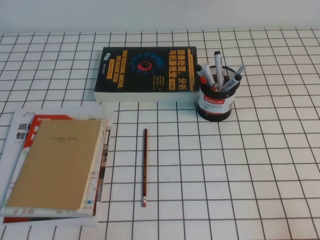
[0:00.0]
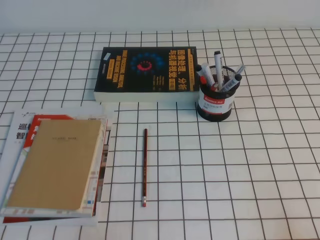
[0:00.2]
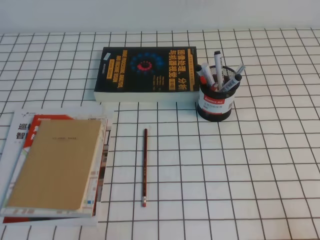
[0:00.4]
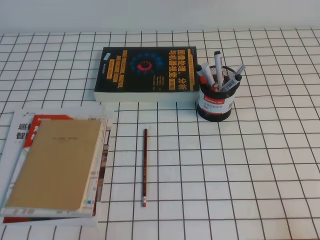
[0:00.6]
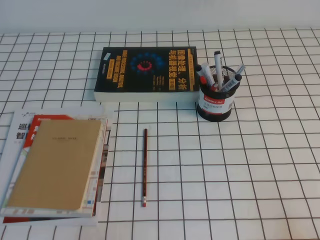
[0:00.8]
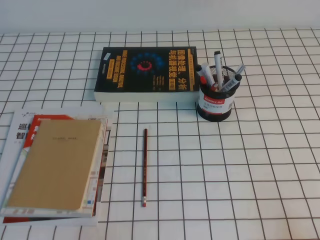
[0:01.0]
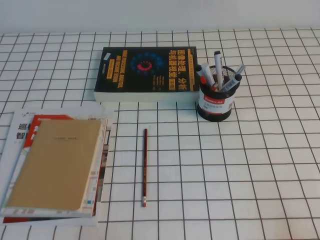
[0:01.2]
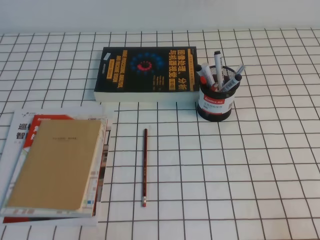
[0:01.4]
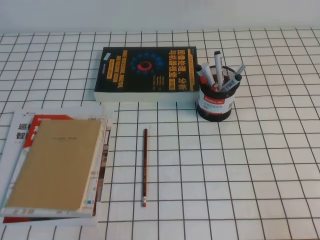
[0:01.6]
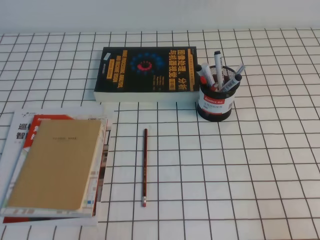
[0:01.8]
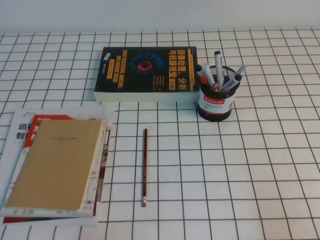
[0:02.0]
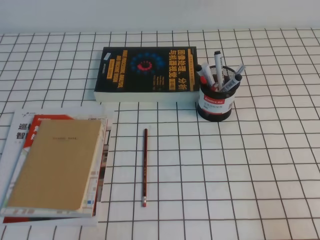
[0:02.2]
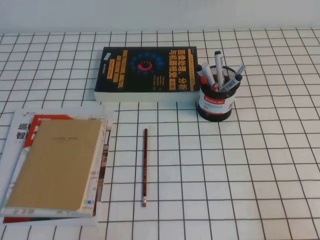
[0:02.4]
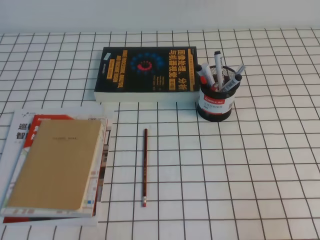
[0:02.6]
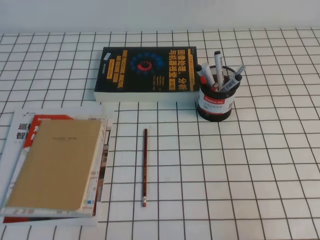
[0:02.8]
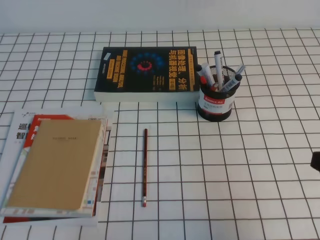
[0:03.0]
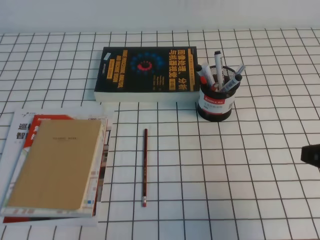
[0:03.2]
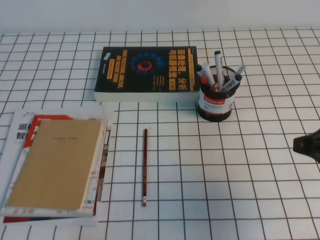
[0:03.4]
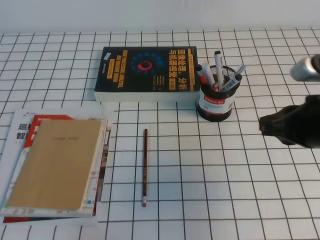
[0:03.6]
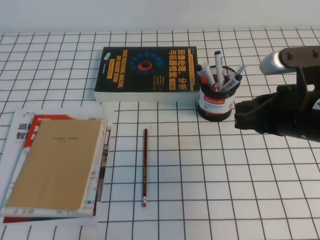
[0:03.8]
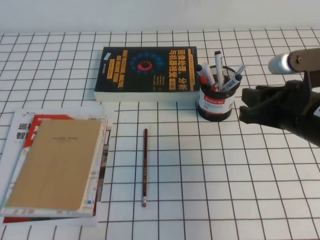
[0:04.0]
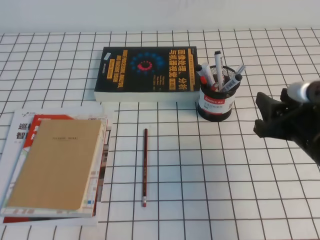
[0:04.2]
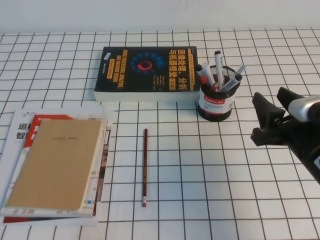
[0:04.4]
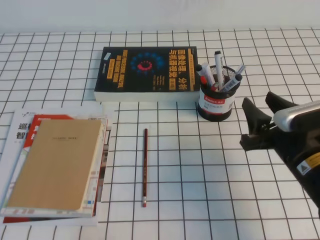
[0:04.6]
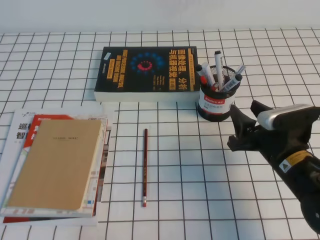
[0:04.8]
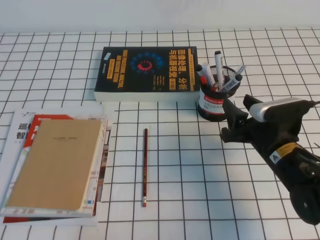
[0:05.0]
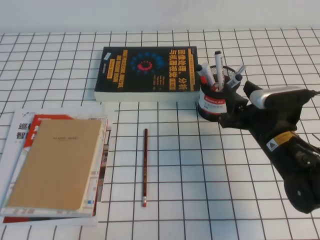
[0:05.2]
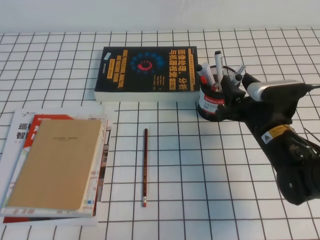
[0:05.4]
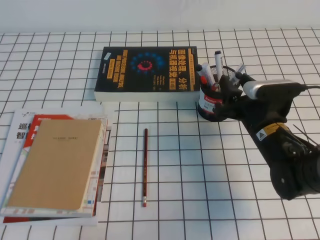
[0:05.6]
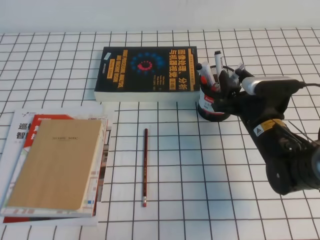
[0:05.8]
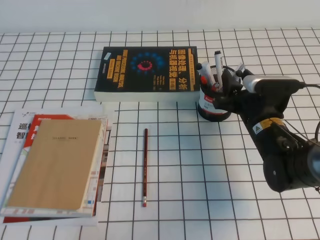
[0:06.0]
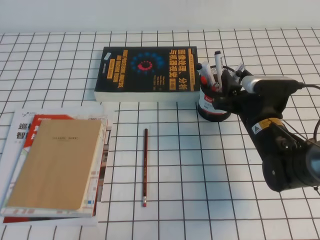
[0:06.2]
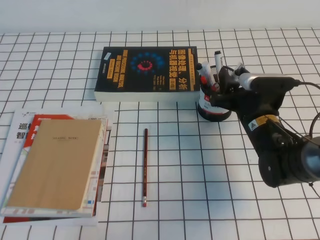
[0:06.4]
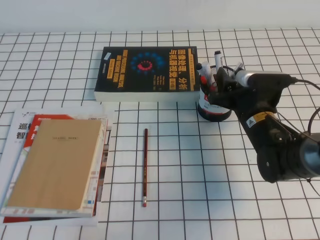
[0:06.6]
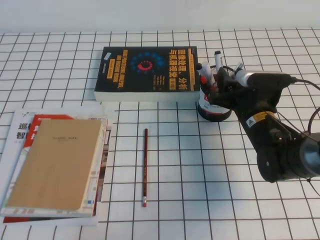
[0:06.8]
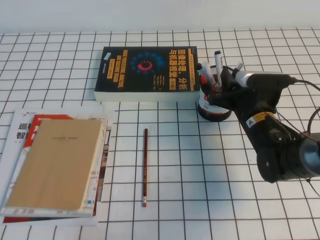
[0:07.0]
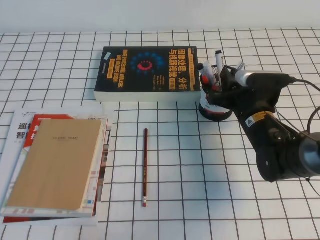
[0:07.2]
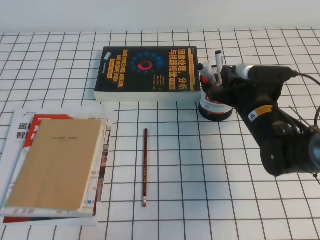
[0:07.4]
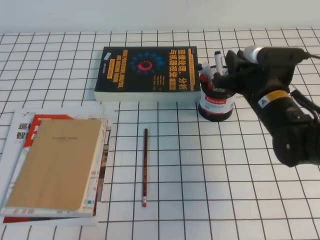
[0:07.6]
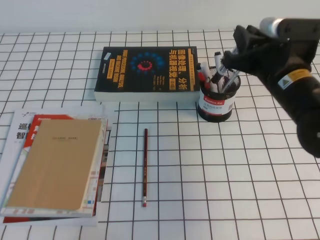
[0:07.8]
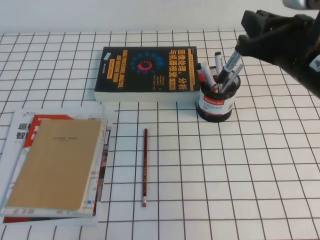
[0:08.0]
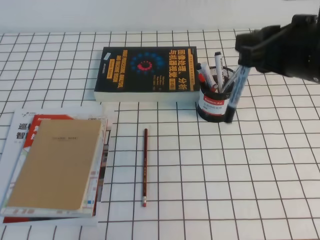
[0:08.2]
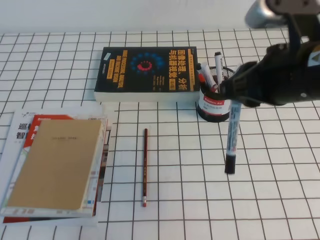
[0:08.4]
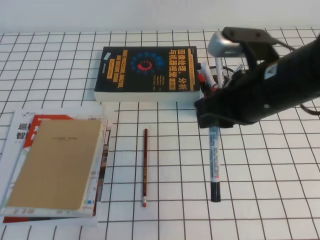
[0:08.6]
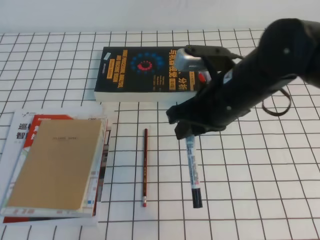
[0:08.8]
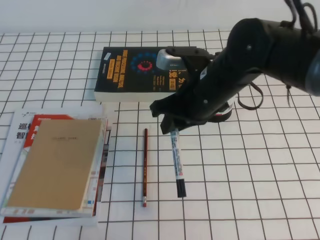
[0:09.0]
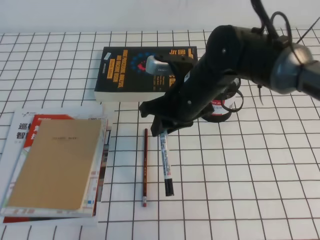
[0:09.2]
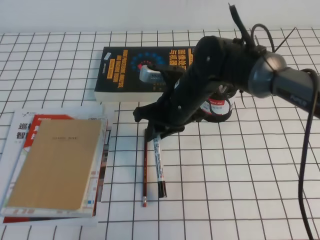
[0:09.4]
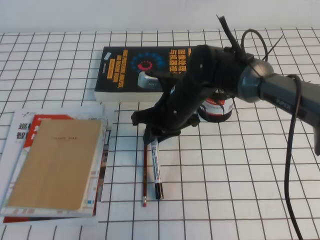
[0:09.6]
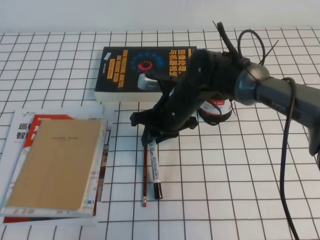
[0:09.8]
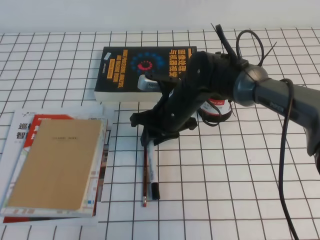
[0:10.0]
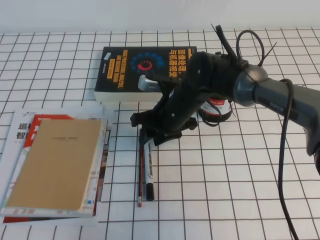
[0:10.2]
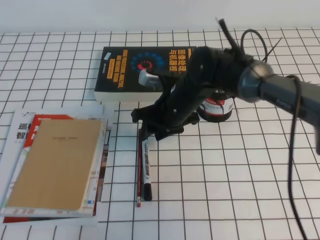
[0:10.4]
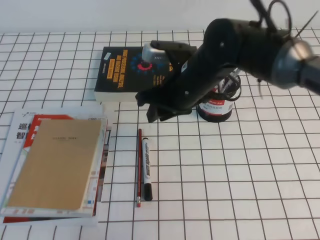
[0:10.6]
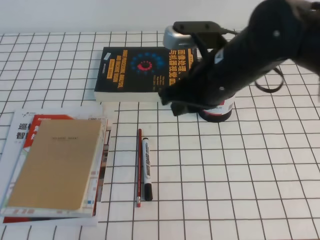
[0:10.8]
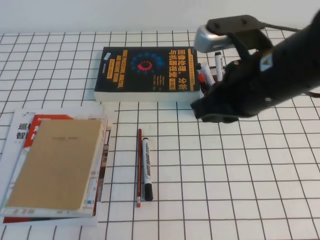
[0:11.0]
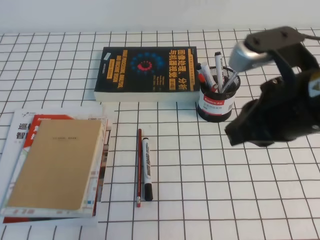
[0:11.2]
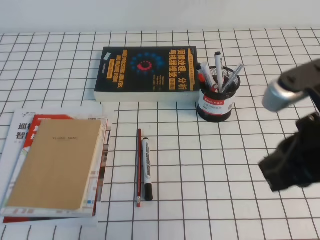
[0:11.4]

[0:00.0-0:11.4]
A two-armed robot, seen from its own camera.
0:01.4 to 0:02.8: The right gripper travels upward by some 10 cm.
0:02.8 to 0:04.2: The right gripper heads forward and to the left, covering some 20 cm, and opens.
0:04.2 to 0:05.6: The right gripper goes roughly 10 cm forward and downward.
0:05.6 to 0:07.2: The right gripper closes up.
0:07.2 to 0:08.6: The right gripper heads upward and backward, covering roughly 20 cm.
0:08.6 to 0:10.0: The right gripper is displaced downward, forward and to the left by some 20 cm.
0:10.0 to 0:11.4: The right gripper shifts some 30 cm backward, to the right and upward, and closes.

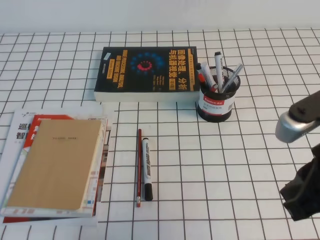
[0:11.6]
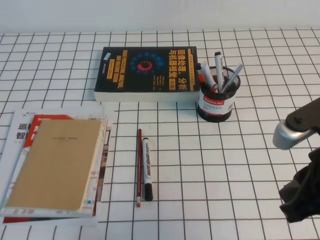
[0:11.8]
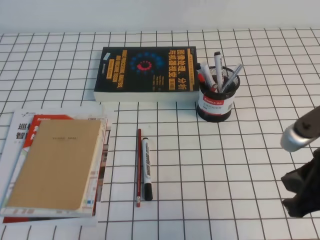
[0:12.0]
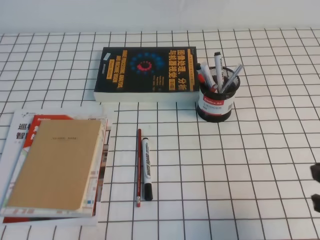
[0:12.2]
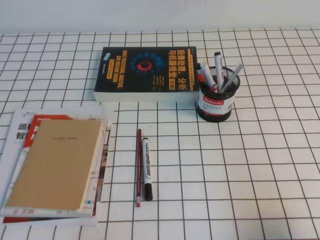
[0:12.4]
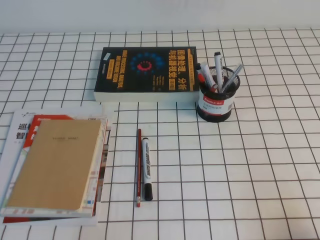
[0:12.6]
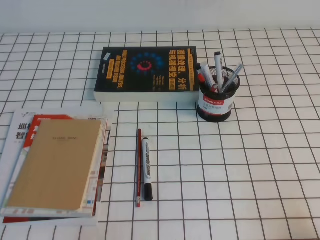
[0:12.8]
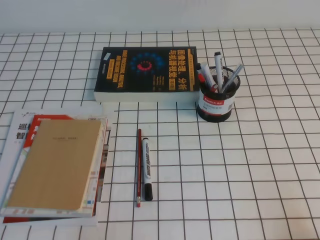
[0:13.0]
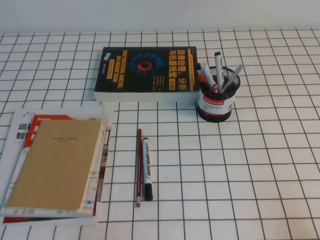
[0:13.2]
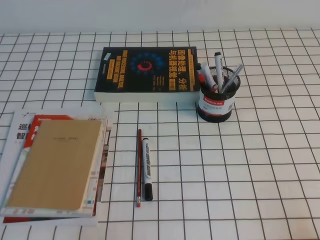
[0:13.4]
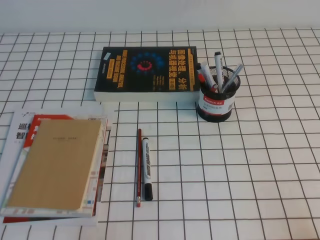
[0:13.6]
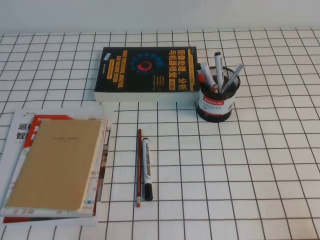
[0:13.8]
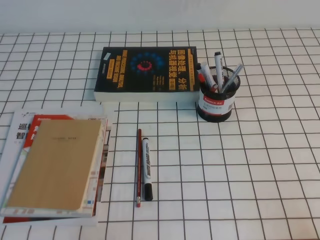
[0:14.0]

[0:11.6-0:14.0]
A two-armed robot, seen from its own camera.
Step, 0:11.6 to 0:14.0: Pick up the pen from the pen holder.
0:11.6 to 0:12.8: The right gripper goes approximately 20 cm downward, to the right and backward.
